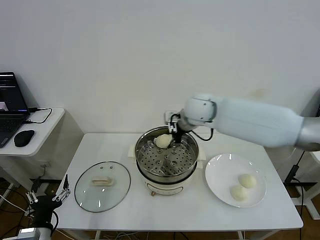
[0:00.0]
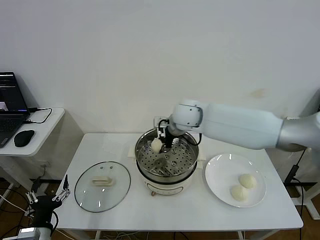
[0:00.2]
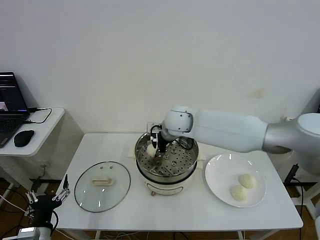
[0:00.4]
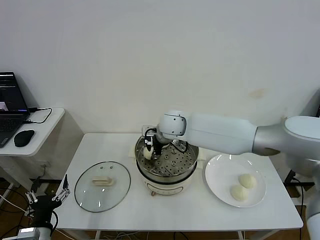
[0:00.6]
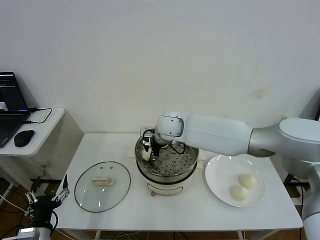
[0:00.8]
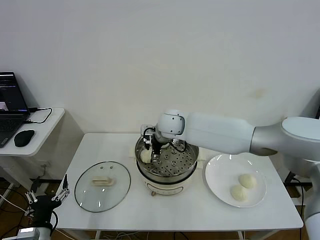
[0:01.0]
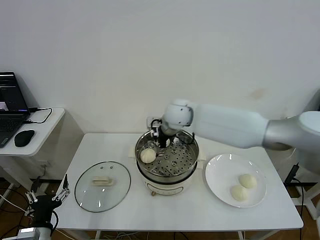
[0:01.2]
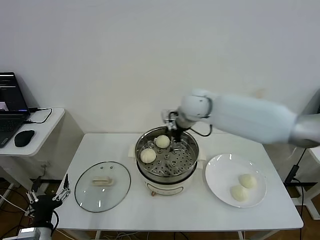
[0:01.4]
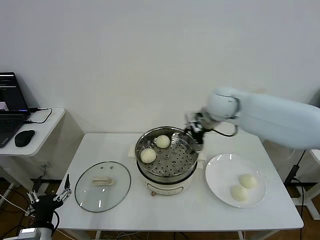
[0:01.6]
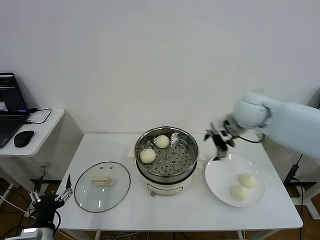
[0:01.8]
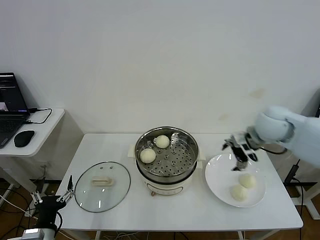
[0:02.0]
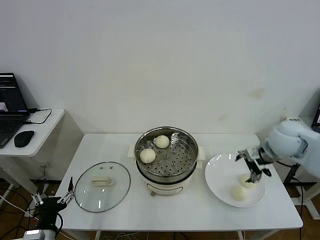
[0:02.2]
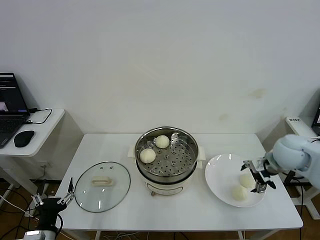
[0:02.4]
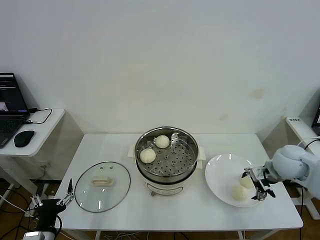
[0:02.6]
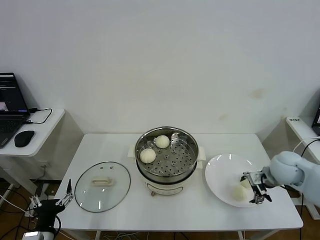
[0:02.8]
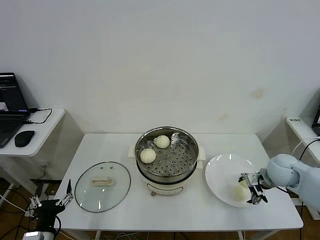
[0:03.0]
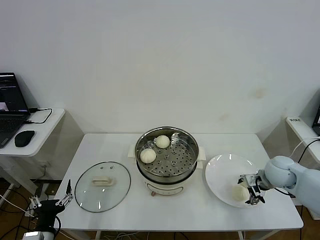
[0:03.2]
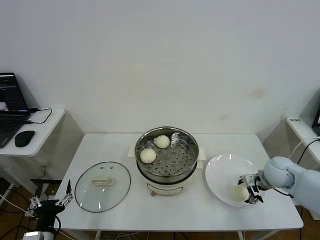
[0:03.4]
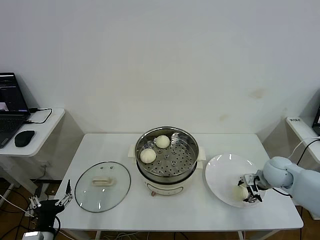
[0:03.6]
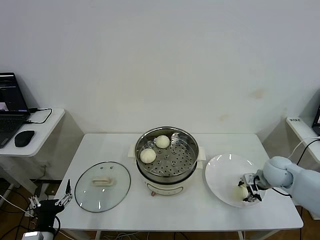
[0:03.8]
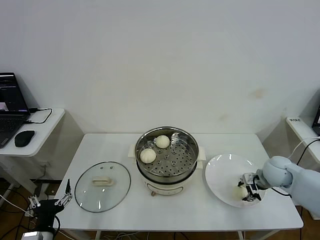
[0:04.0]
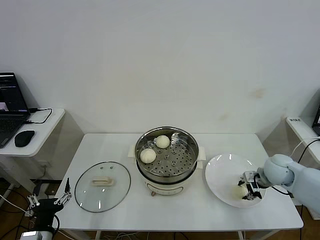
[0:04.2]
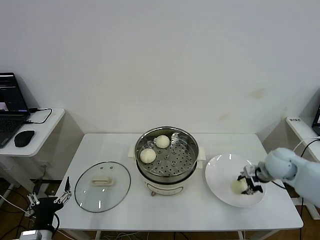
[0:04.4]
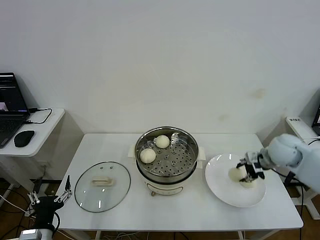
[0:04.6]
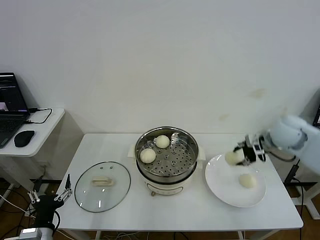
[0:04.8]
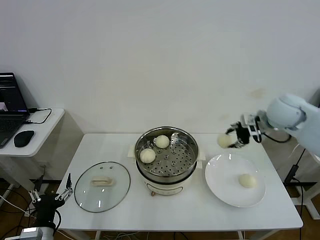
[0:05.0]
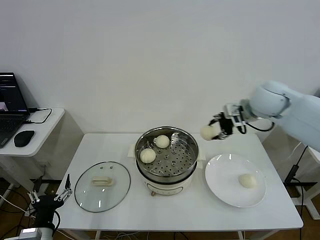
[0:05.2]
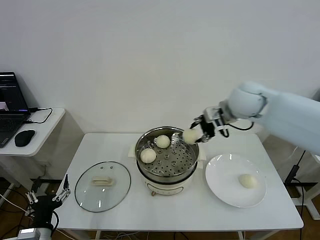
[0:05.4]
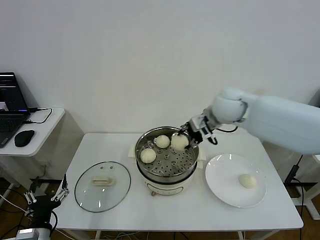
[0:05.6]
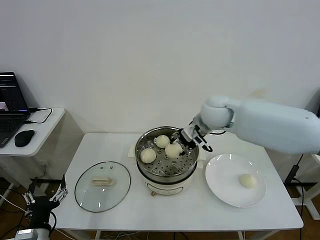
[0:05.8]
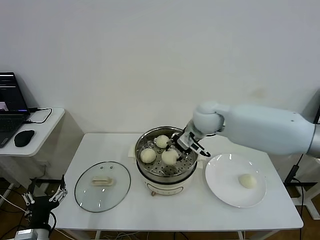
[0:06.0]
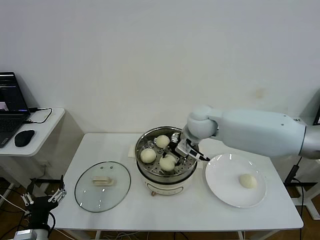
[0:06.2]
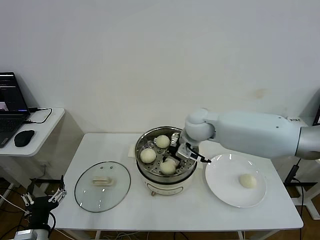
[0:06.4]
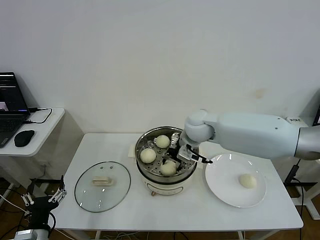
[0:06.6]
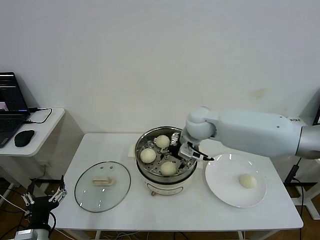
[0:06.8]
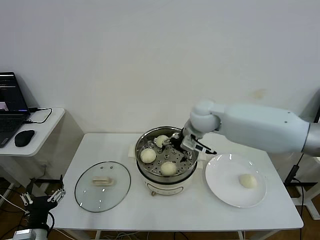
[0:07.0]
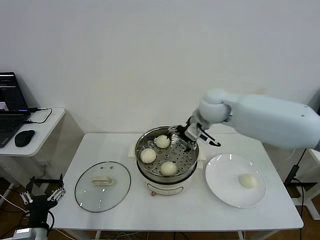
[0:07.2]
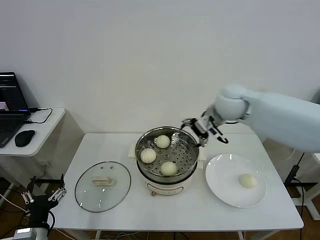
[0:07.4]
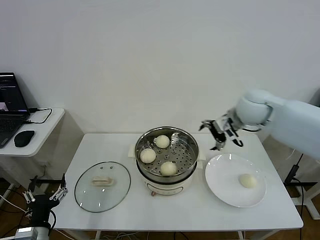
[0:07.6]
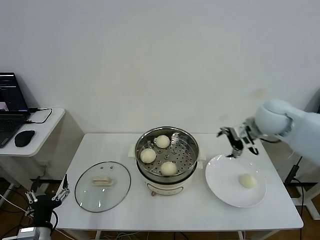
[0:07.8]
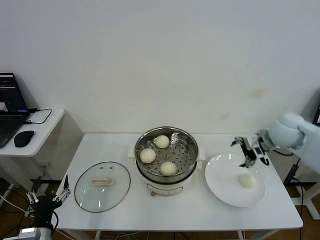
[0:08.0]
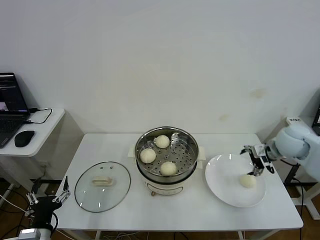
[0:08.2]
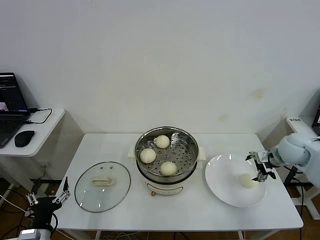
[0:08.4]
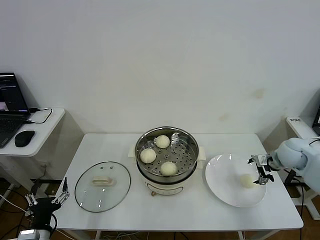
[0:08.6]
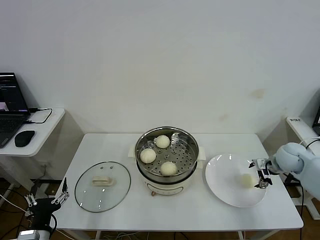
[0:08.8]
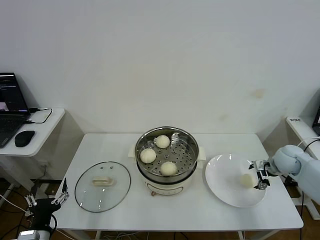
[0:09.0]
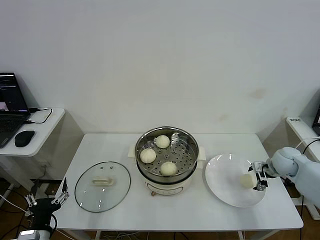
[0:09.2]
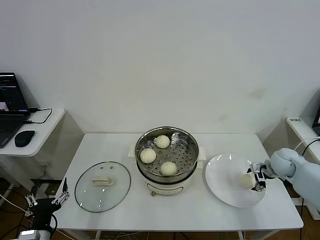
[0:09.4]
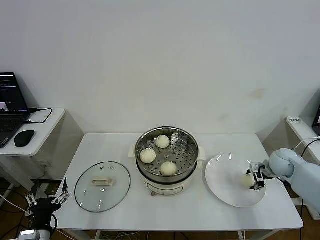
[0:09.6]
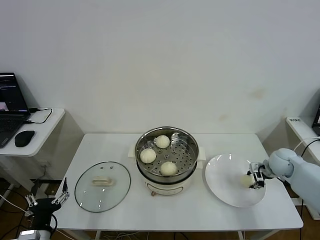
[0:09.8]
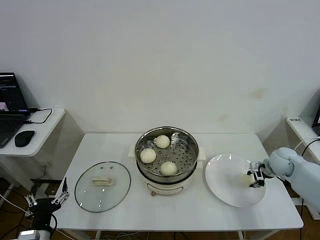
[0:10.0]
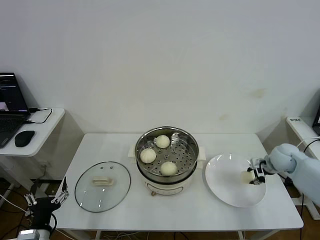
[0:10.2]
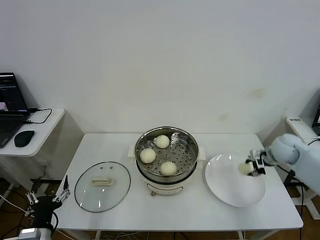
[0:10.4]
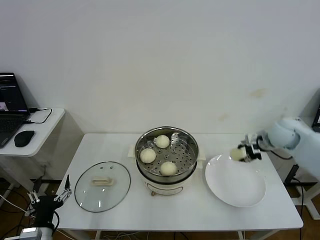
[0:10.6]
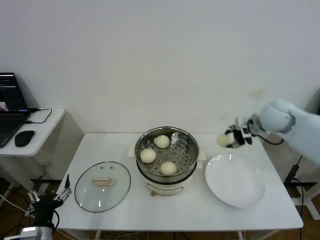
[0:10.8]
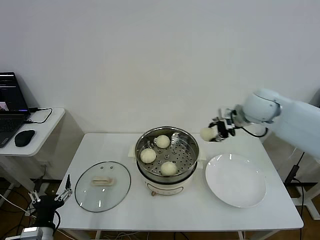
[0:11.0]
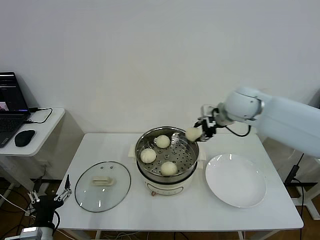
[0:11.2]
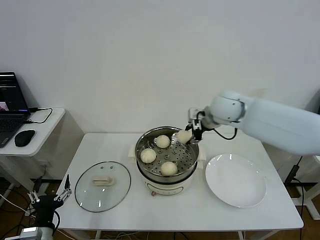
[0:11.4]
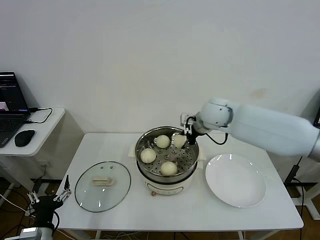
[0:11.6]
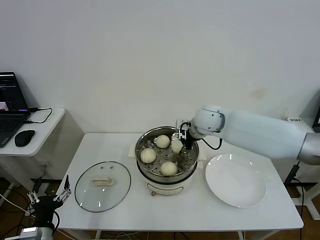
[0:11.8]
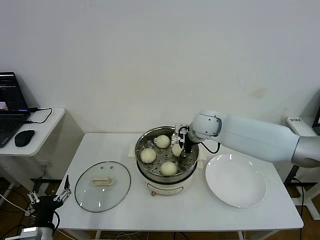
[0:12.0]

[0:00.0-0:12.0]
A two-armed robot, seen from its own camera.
Step, 0:01.2 to 0:03.6: Grasp the baozi in the plate with right gripper.
Step, 0:03.8 to 0:06.8: Place the baozi on the steamer with right gripper.
Step, 0:07.0 to 0:09.8: Grasp the baozi in the plate with right gripper.
0:00.0 to 0:01.6: The right gripper moves to the right, approximately 10 cm, and opens.
0:01.6 to 0:03.0: The right gripper is displaced to the right, downward and backward by roughly 30 cm.
0:03.0 to 0:04.4: The right gripper closes its fingers.
0:04.4 to 0:06.0: The right gripper goes approximately 30 cm to the left and upward.
0:06.0 to 0:07.6: The right gripper moves to the right, some 15 cm, and opens its fingers.
0:07.6 to 0:09.0: The right gripper travels downward and to the right by roughly 25 cm.
0:09.0 to 0:10.4: The right gripper shifts by approximately 5 cm, and closes up.
0:10.4 to 0:12.0: The right gripper is displaced to the left by roughly 30 cm.

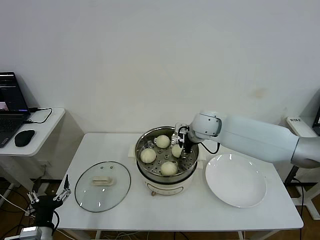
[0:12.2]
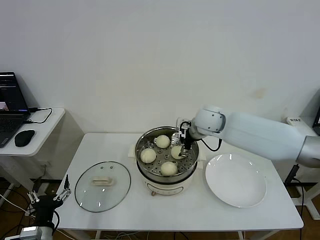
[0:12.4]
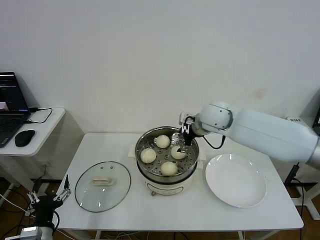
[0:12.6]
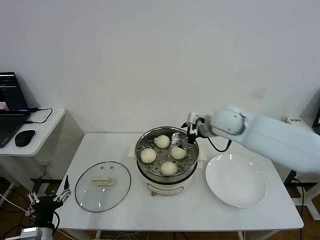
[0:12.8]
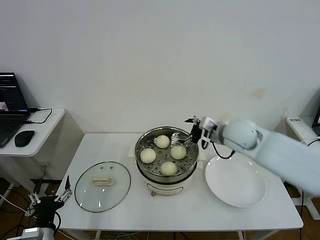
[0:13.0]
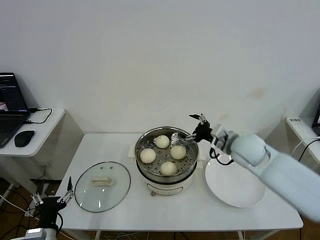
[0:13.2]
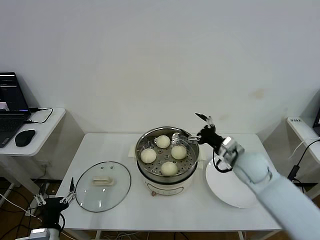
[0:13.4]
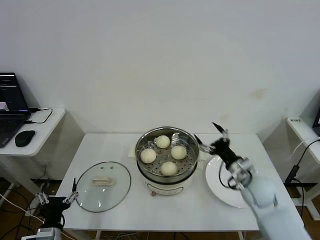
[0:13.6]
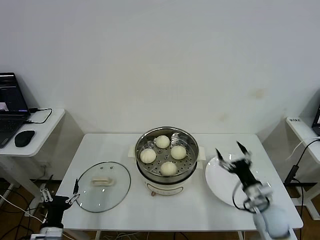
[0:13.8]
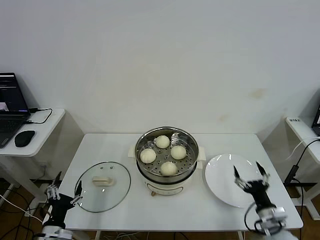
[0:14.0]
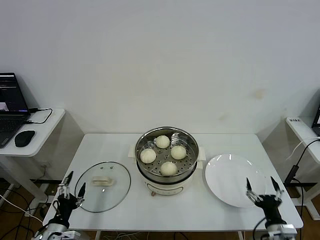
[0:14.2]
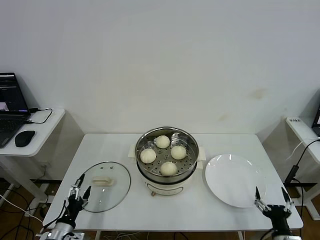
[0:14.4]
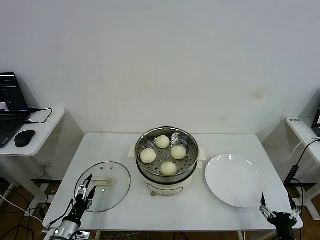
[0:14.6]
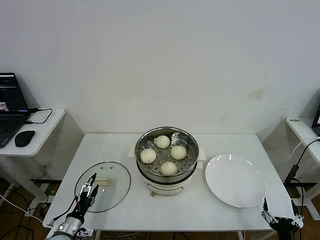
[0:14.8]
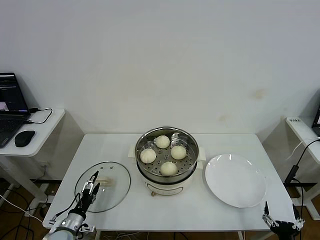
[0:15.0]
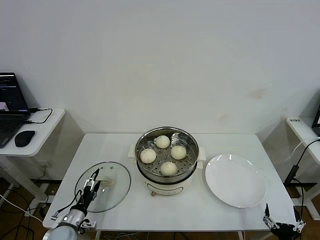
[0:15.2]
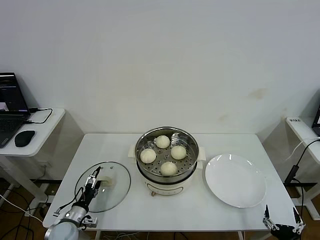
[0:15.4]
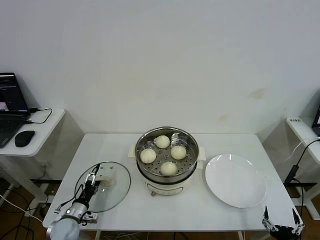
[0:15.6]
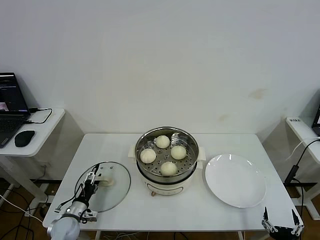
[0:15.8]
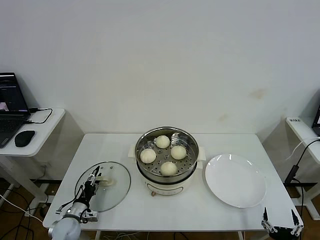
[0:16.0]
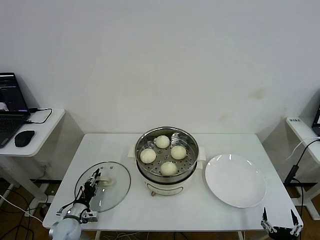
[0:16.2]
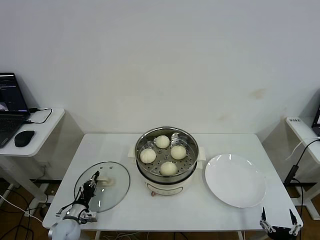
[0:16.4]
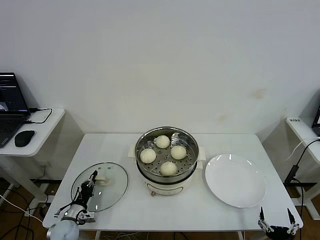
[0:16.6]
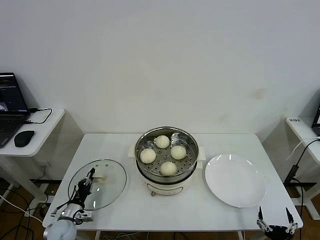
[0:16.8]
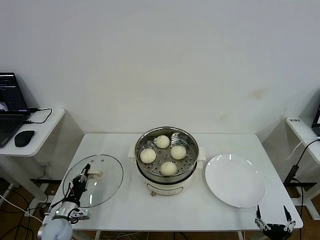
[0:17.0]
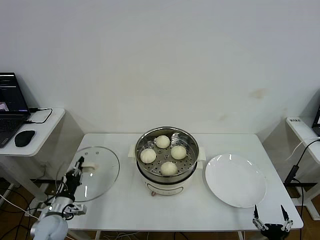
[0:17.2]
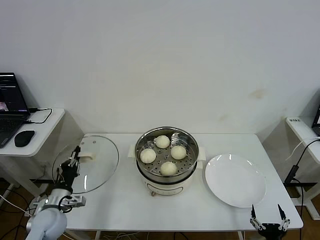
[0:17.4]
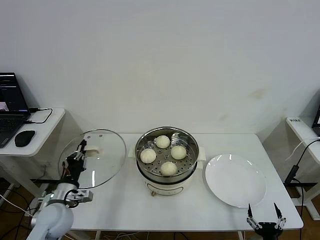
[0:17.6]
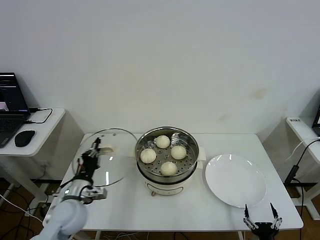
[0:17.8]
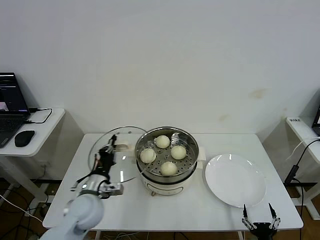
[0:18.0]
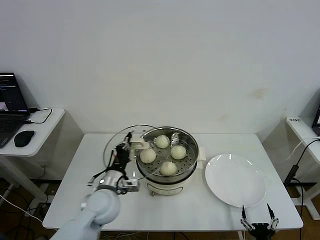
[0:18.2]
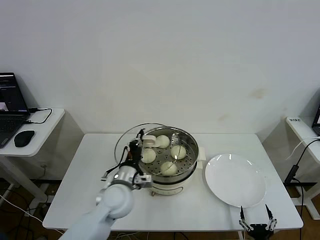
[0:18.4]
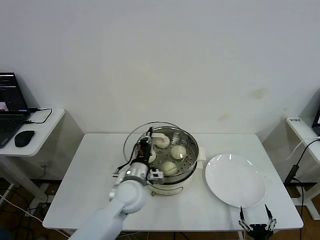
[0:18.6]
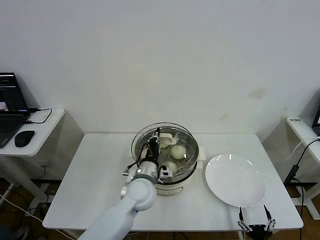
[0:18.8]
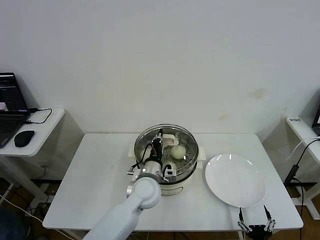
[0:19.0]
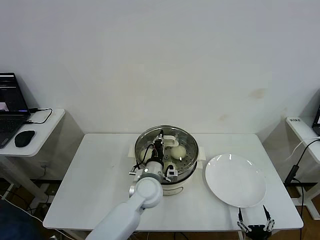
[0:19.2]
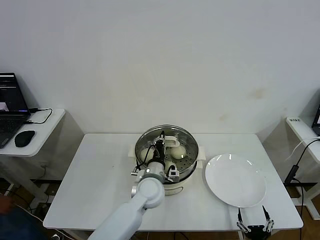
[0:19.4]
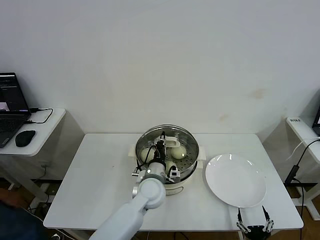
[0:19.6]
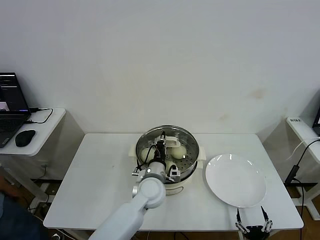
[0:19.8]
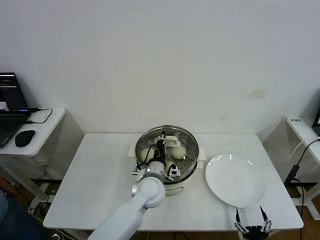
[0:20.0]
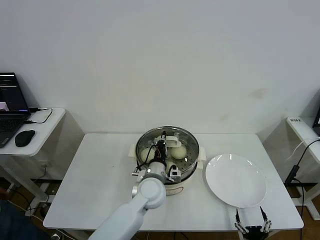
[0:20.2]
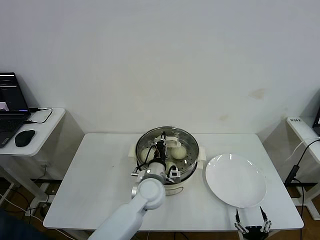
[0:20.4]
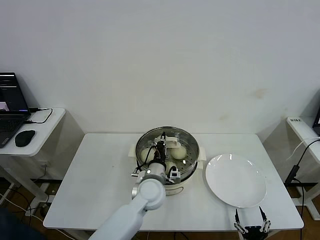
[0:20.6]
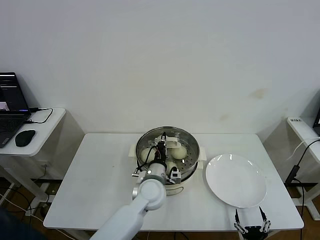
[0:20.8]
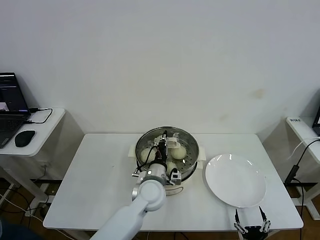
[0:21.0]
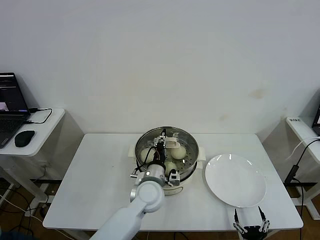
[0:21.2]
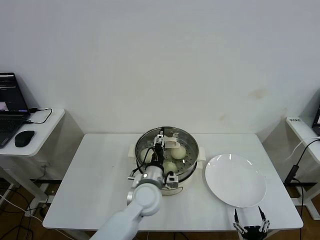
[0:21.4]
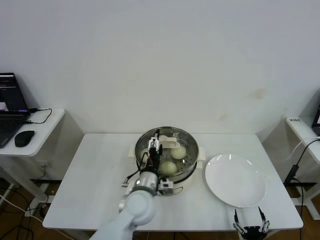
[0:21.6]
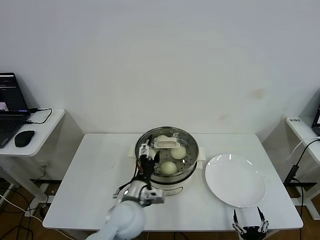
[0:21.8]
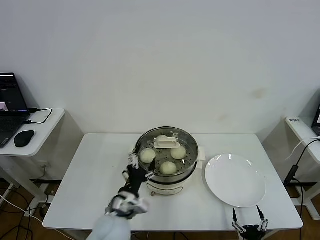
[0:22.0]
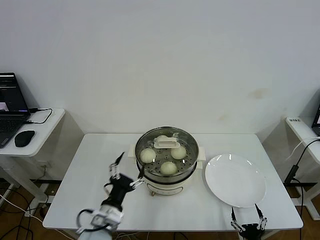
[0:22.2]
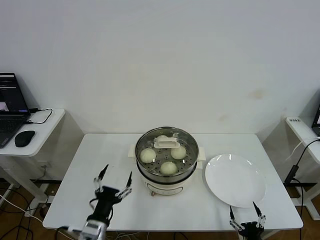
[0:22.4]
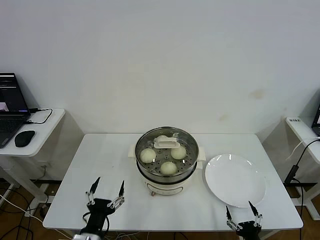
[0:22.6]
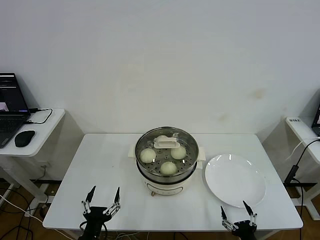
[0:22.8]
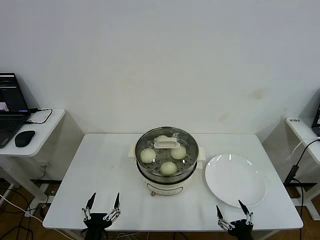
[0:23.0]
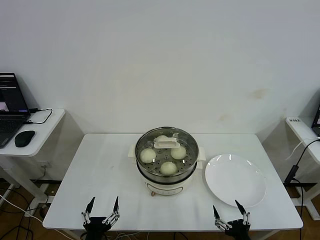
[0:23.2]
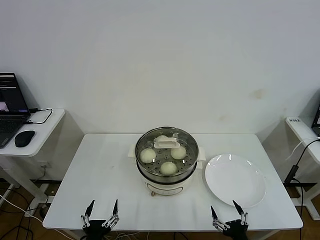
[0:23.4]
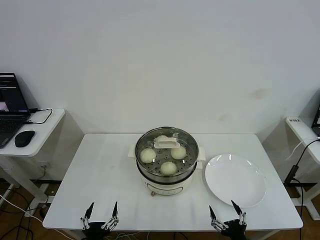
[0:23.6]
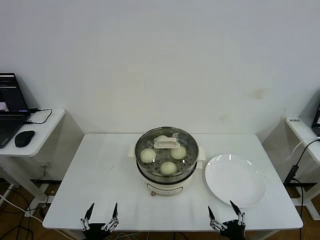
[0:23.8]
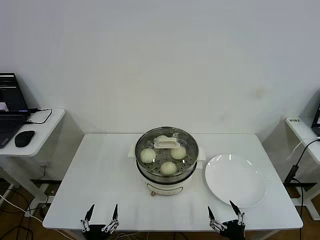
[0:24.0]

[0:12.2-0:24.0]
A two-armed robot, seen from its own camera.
Step, 0:12.6 to 0:16.6: Grasp the pot lid with left gripper.
Step, 0:16.8 to 0:21.2: Place the pot lid on the steamer with left gripper.
0:12.2 to 0:13.6: The right gripper is displaced backward, to the right and downward by approximately 25 cm, and opens up.
0:13.6 to 0:15.2: The right gripper heads backward and downward, covering some 30 cm, while the left gripper goes some 15 cm forward and downward.
0:15.2 to 0:16.6: The left gripper closes its fingers.
0:16.6 to 0:18.2: The left gripper goes about 30 cm upward and to the right.
0:18.2 to 0:19.6: The left gripper is displaced to the right by some 15 cm.
0:19.6 to 0:21.0: Neither gripper changes place.
0:21.0 to 0:22.6: The left gripper shifts about 25 cm backward and to the left, and opens up.
0:22.6 to 0:24.0: The left gripper travels backward and downward by roughly 10 cm; the right gripper is displaced upward by roughly 5 cm.
